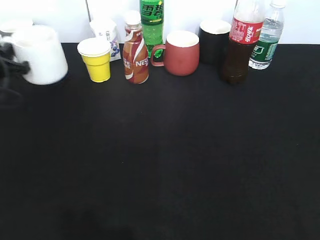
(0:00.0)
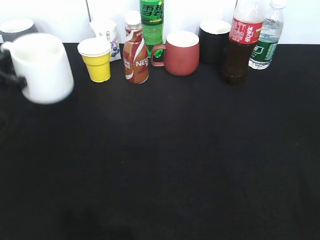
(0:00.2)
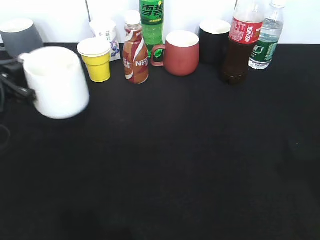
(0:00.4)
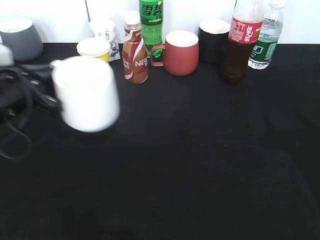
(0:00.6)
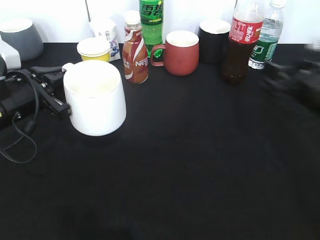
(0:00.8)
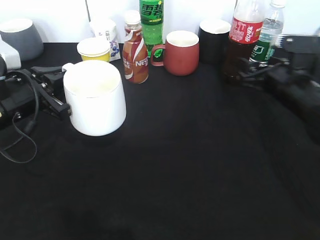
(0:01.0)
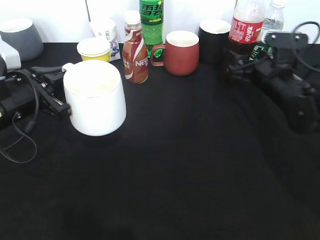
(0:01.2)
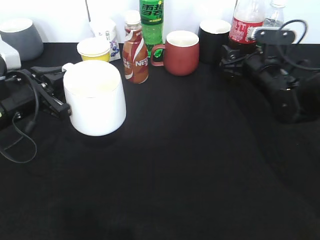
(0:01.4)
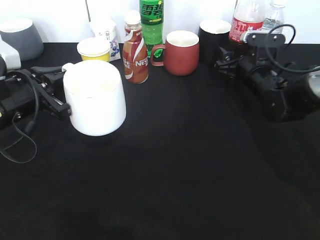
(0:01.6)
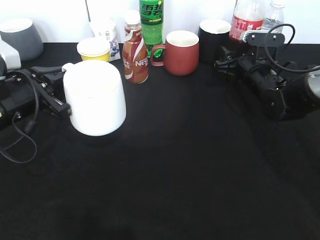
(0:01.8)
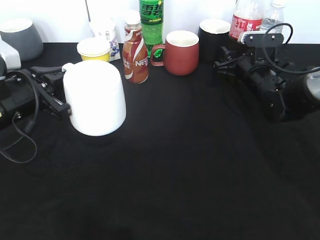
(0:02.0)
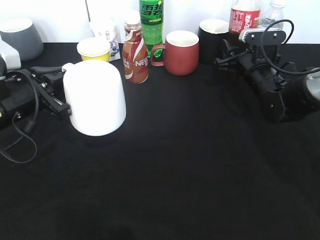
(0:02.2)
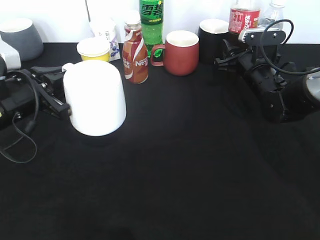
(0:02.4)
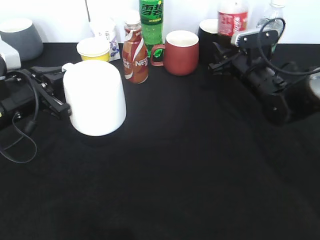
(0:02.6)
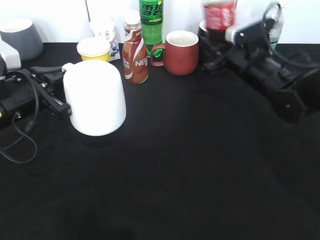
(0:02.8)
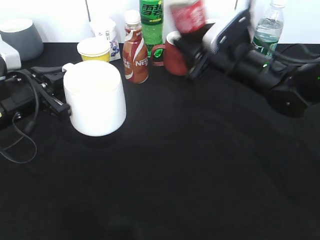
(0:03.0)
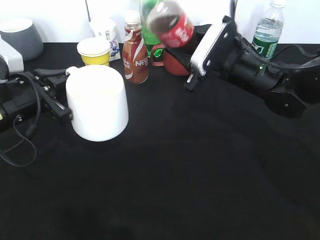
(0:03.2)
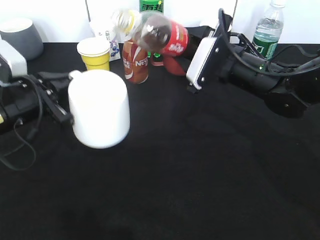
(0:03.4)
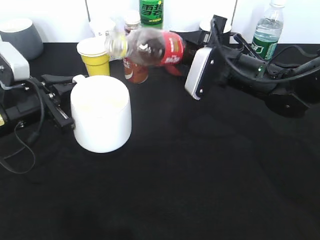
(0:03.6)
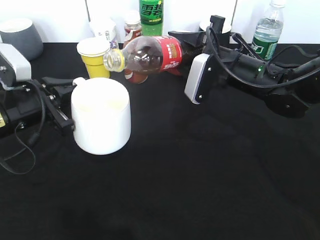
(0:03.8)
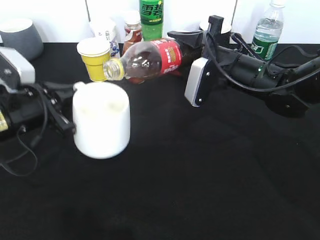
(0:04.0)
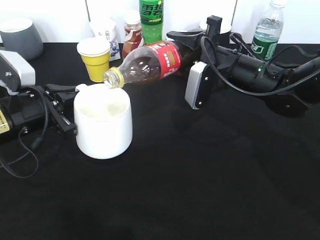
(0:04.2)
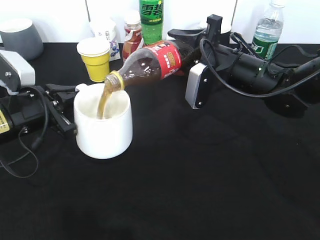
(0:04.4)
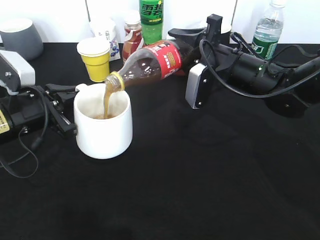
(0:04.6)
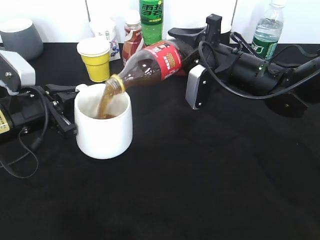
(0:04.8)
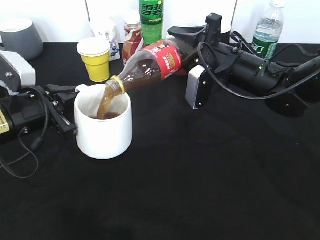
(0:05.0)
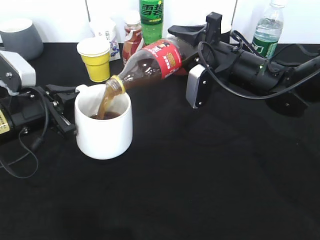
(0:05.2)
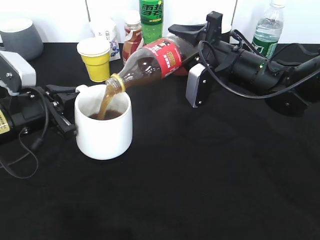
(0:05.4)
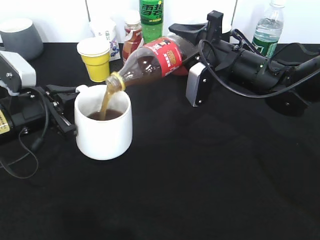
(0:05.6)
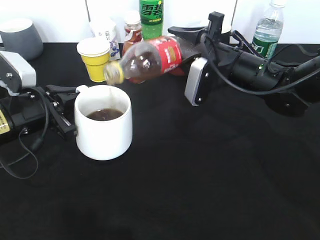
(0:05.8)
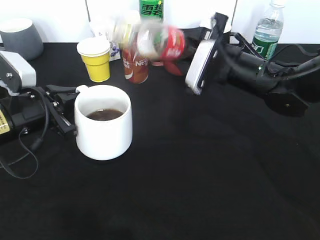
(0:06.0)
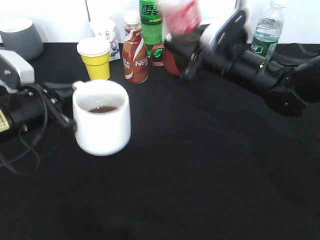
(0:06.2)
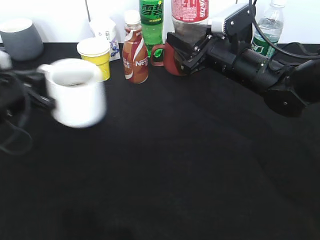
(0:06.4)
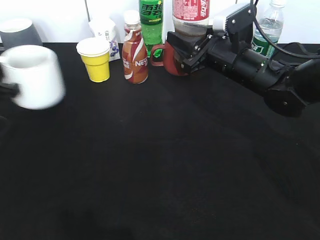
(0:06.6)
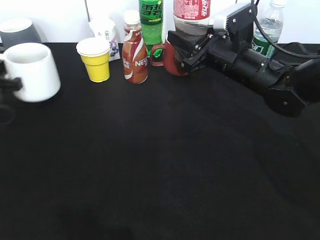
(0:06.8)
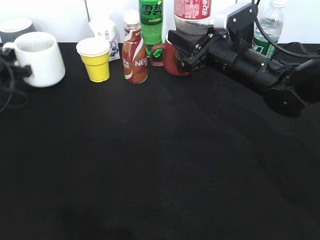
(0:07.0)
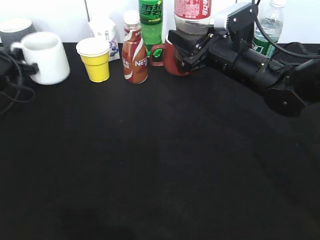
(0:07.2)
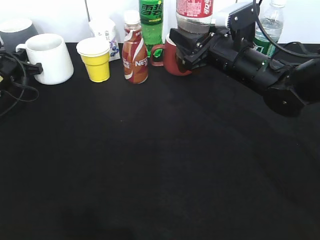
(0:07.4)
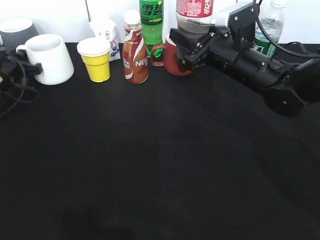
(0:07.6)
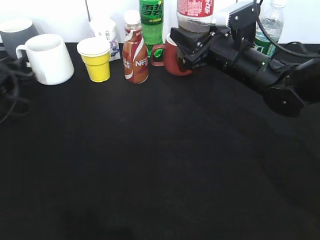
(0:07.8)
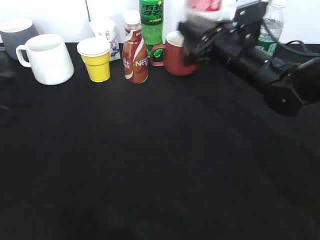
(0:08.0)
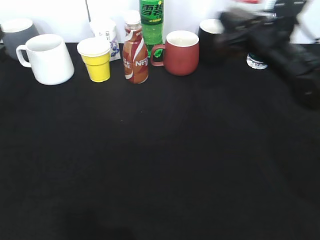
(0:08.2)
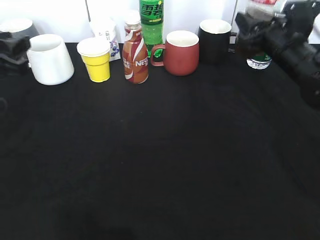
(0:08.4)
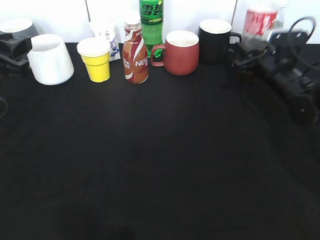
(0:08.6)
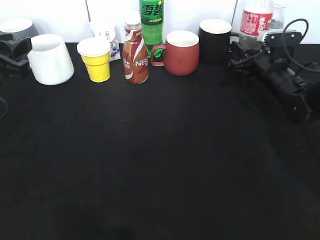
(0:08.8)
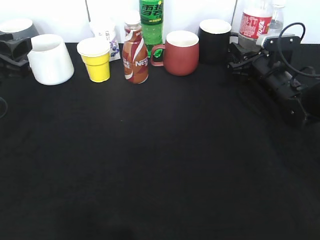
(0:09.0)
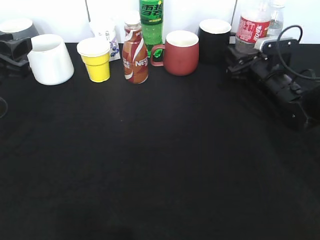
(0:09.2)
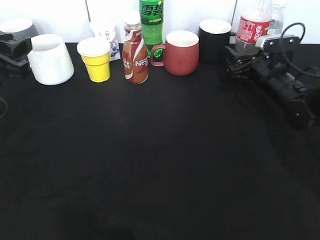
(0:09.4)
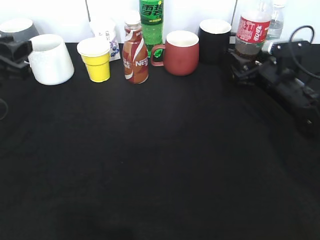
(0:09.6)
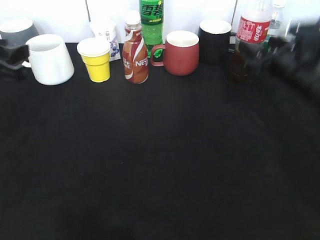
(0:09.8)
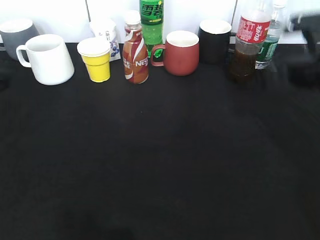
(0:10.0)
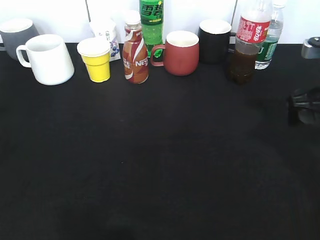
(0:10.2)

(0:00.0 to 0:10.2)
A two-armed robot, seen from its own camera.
Step, 0:00.0 - 0:00.6: Lift the white cup with left gripper.
Step, 0:00.8 - 0:02.0: Grasp the bottle with cola with right gripper.
Step, 0:02.2 - 0:05.8: Pour the cola from bottle to cup with right gripper.
Step, 0:06.2 - 0:07.8: Place the white cup on the table with left gripper.
Step, 0:08.0 - 0:10.0: Place the cola bottle on the table with right gripper.
0:00.0 - 0:01.4: The left gripper is displaced to the right and backward by about 10 cm, while the right gripper moves forward and downward, roughly 40 cm.
0:01.4 - 0:03.0: The right gripper shifts roughly 10 cm to the left and upward, and closes its fingers.
0:04.4 - 0:05.8: The grippers make only small movements.
0:05.8 - 0:07.2: The left gripper moves forward and to the left, approximately 20 cm.
0:07.2 - 0:08.8: The left gripper goes about 20 cm backward, upward and to the right, and opens its fingers; the right gripper is displaced to the right, downward and forward by some 15 cm.
0:08.8 - 0:10.2: The right gripper goes some 20 cm backward and upward, and opens. Meanwhile the left gripper shifts approximately 10 cm upward and backward, and opens.

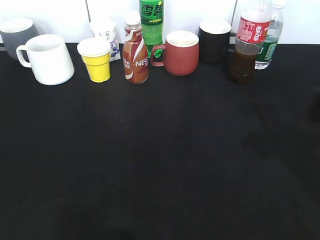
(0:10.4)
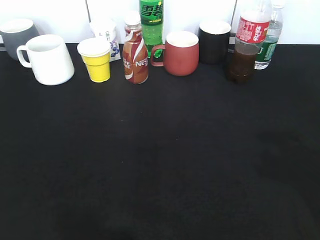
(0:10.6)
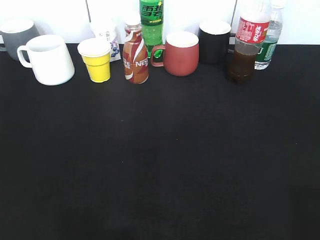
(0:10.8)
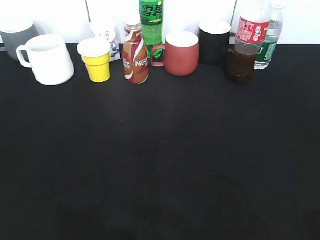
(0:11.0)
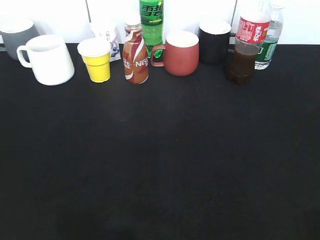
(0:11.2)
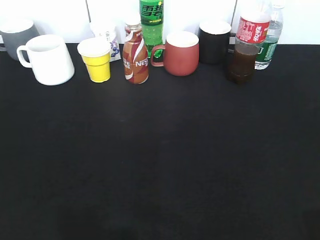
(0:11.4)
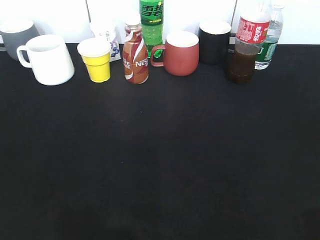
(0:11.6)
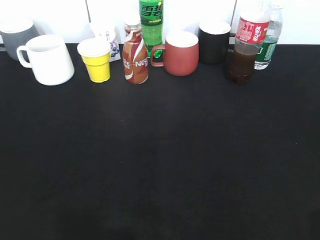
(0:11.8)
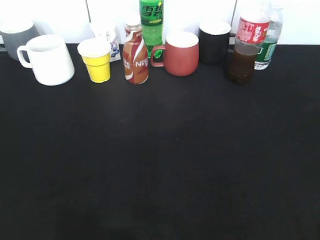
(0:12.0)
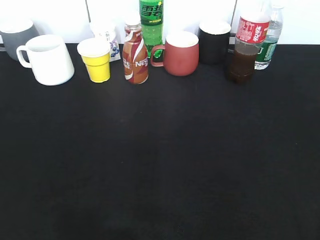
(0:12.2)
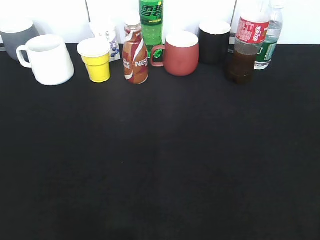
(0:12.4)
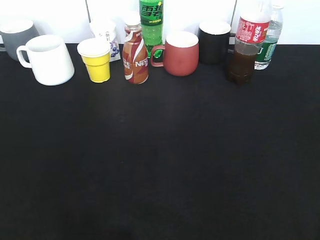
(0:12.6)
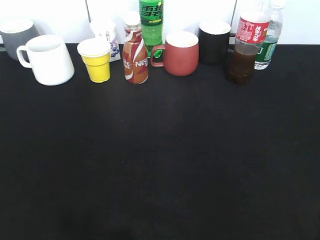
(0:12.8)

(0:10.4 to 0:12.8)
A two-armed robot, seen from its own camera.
0:10.4 - 0:11.6: The right gripper goes roughly 20 cm backward. Meanwhile the left gripper moves backward and downward, about 15 cm.

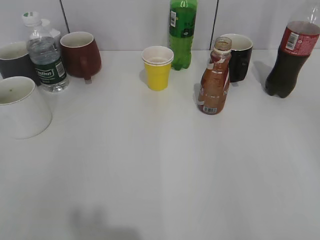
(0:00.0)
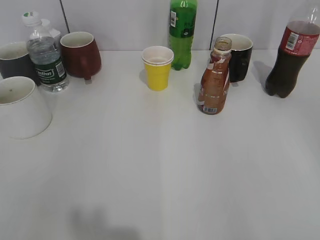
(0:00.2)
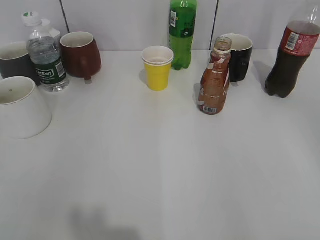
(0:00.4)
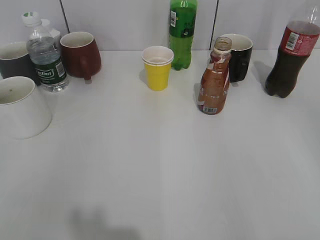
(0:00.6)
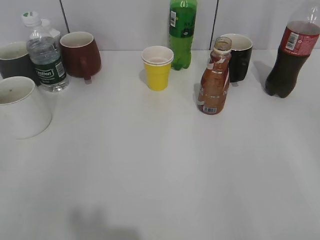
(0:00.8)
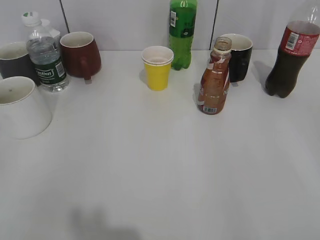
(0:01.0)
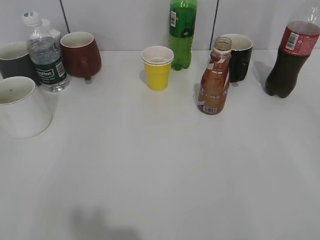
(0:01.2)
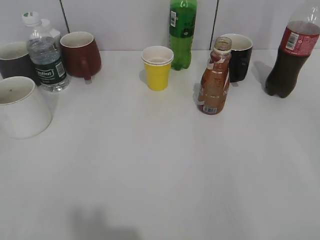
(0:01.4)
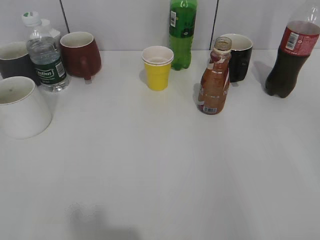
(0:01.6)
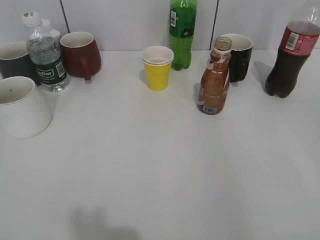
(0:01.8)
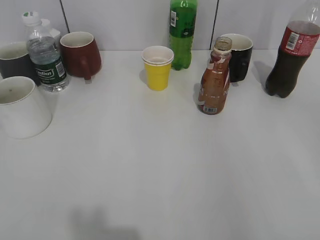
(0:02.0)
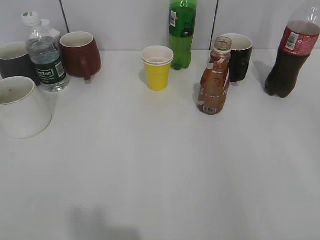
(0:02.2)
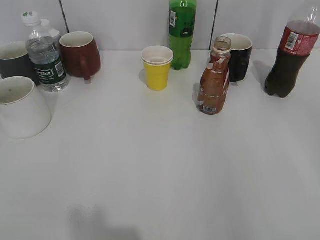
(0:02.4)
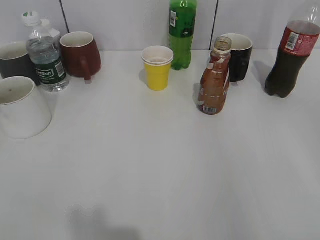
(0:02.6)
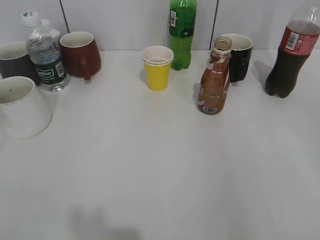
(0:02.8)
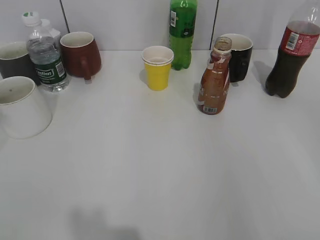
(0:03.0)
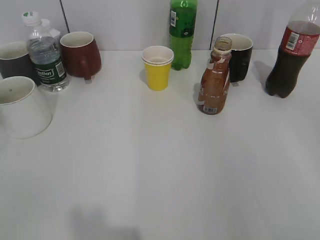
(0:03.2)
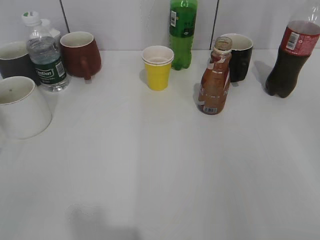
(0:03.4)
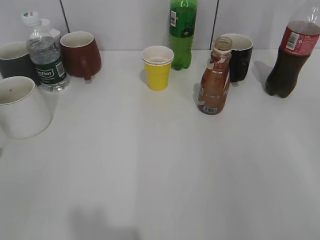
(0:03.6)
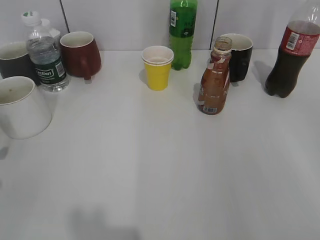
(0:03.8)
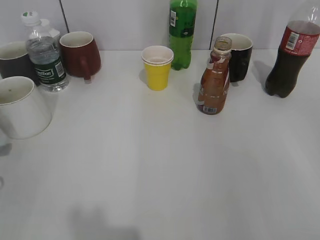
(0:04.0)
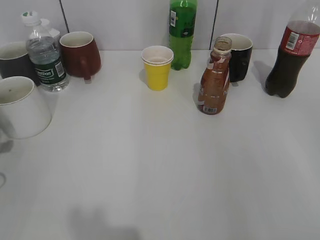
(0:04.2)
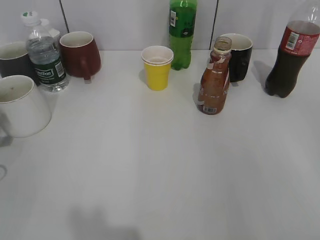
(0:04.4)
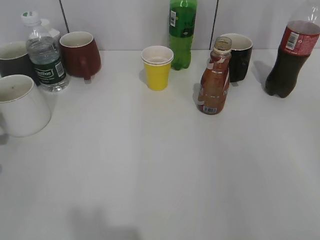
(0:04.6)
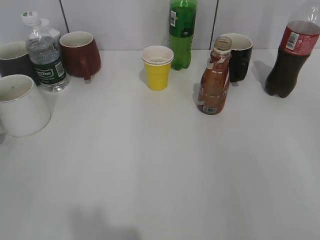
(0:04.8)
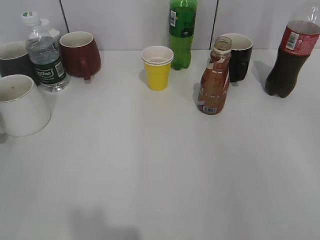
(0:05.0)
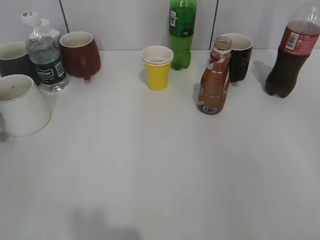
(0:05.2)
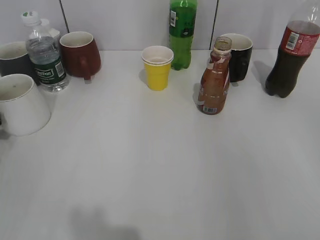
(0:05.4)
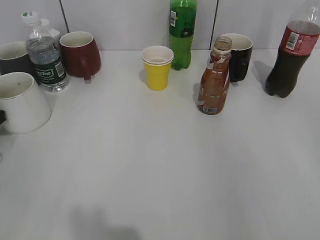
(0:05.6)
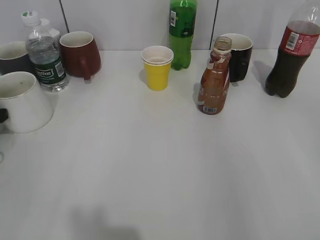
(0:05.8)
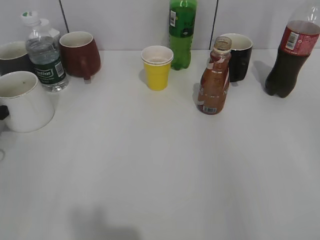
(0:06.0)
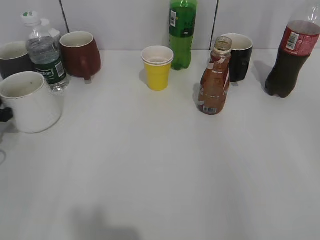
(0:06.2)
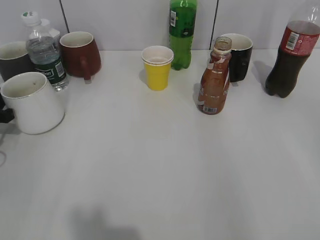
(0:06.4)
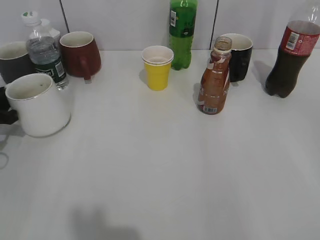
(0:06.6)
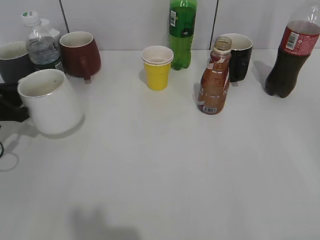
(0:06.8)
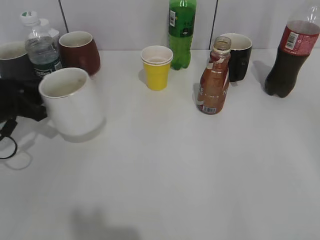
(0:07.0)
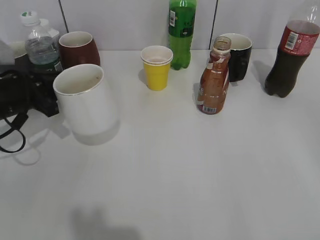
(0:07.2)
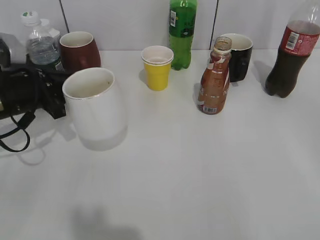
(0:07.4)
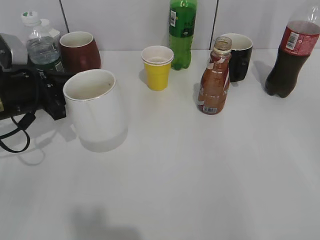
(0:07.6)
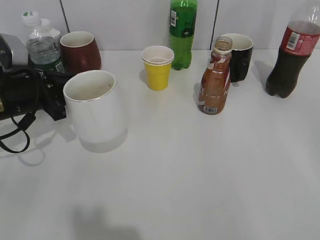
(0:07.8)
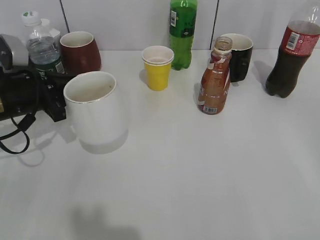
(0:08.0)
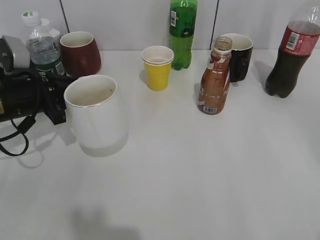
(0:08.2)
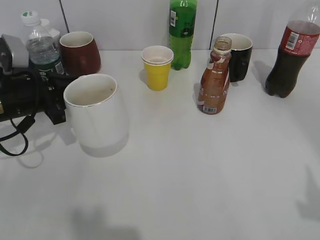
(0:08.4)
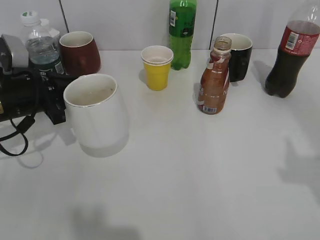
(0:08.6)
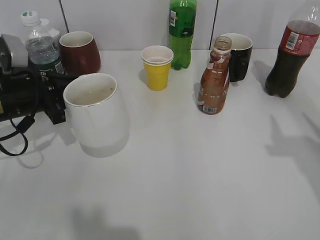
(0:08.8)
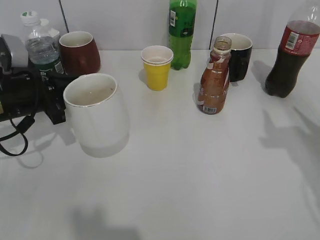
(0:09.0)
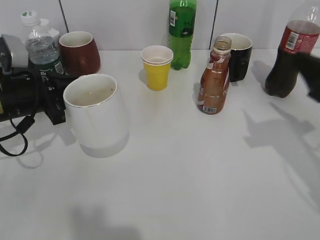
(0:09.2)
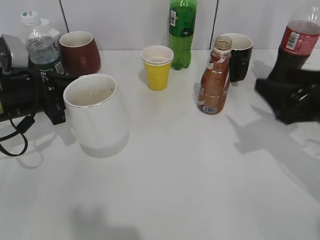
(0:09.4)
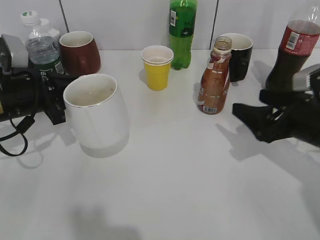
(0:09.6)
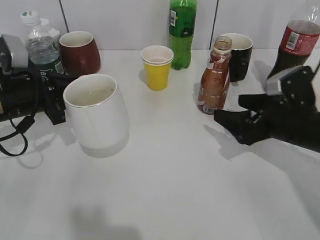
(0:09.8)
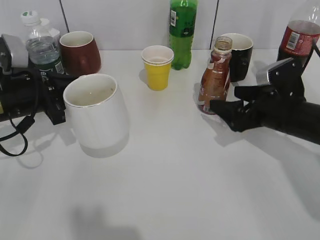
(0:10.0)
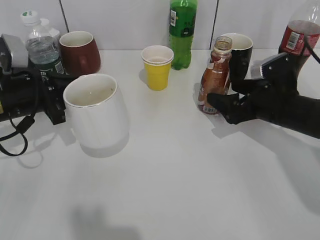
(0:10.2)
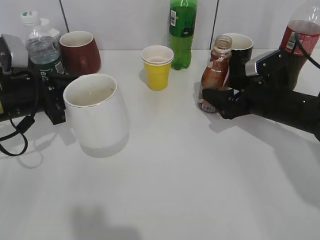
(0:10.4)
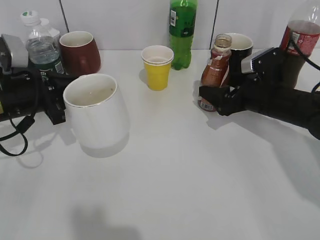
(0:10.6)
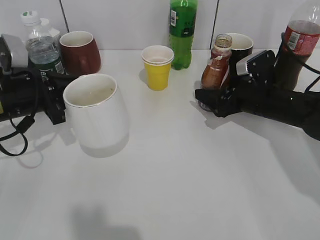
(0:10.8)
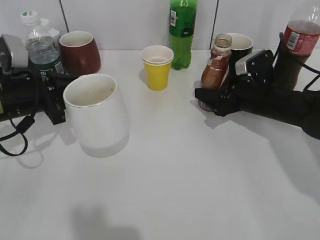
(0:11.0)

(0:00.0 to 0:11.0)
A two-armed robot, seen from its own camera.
Step, 0:06.4 - 0:07.6: Lift the white cup with left gripper.
0:04.8 - 0:06.2: The left gripper shifts by some 5 cm, and closes up.
0:06.2 - 0:07.8: The left gripper heads to the right, covering some 10 cm.
0:07.8 - 0:09.4: The right gripper is displaced forward by approximately 25 cm.
0:09.4 - 0:11.0: The right gripper moves forward, downward and to the left, approximately 15 cm, and opens and closes again.
